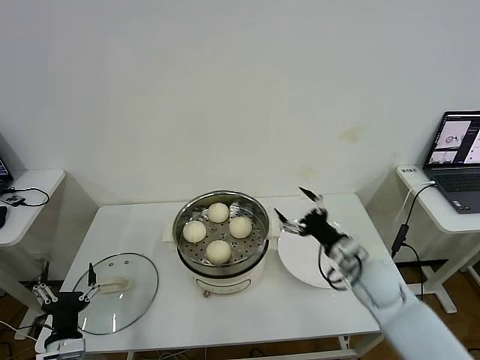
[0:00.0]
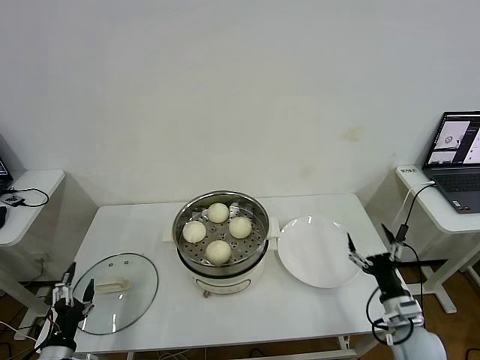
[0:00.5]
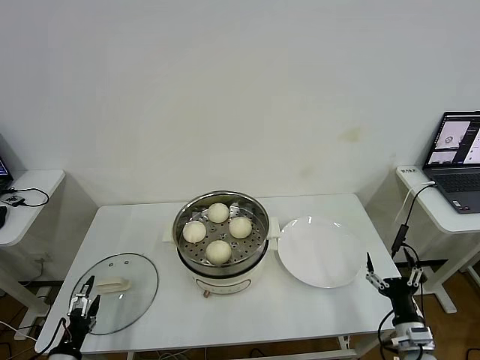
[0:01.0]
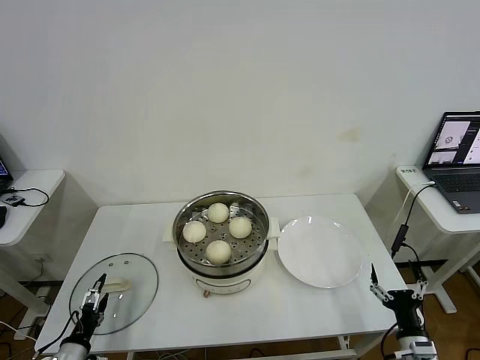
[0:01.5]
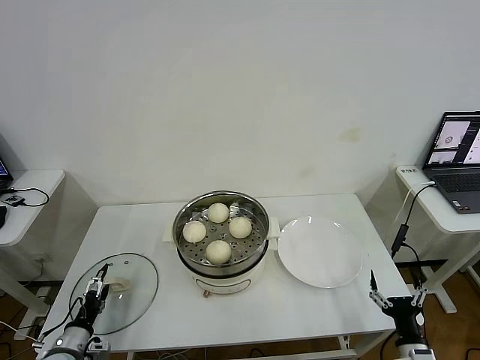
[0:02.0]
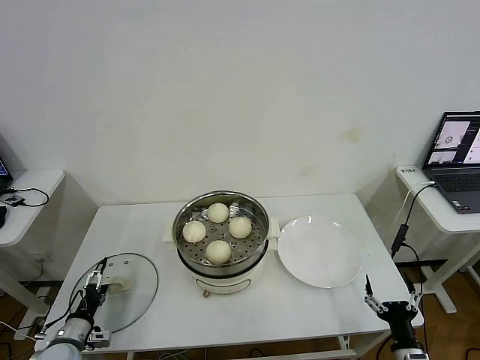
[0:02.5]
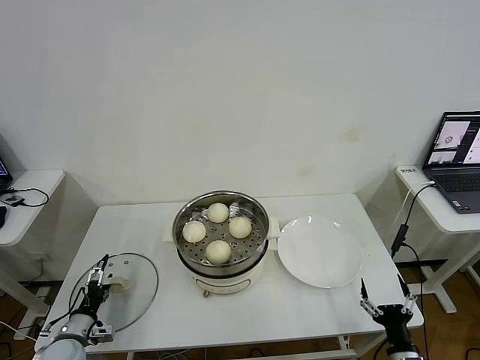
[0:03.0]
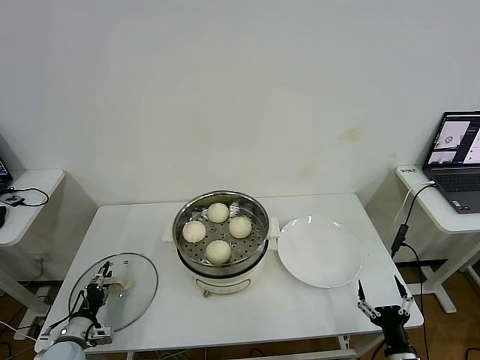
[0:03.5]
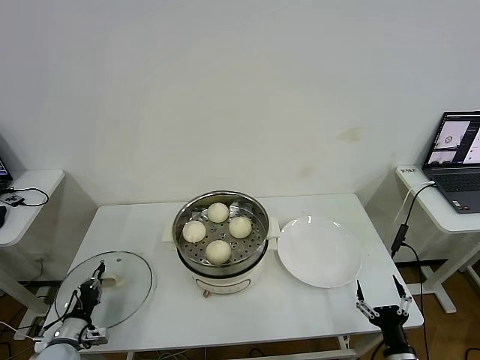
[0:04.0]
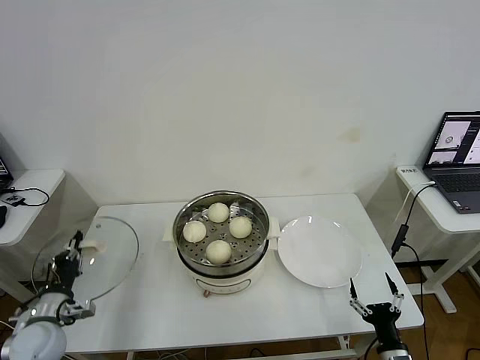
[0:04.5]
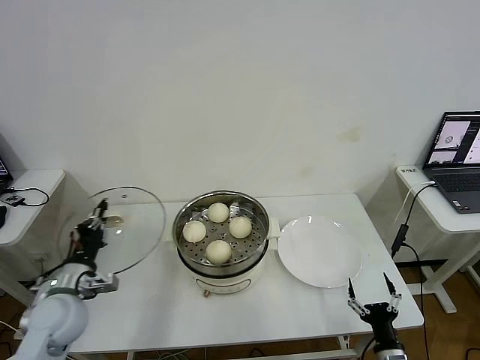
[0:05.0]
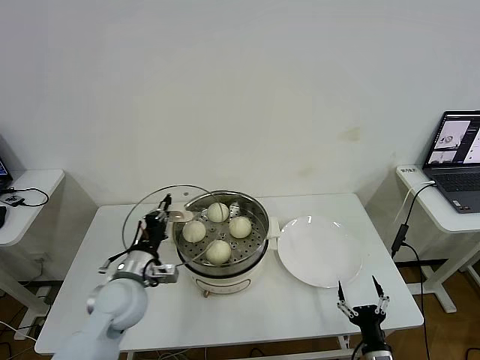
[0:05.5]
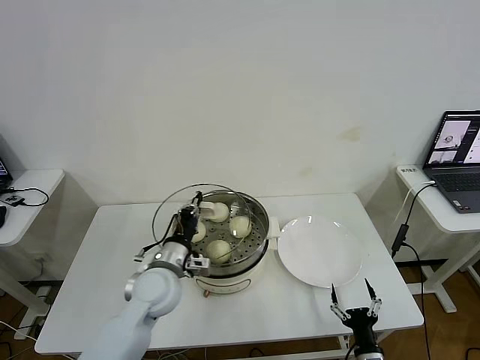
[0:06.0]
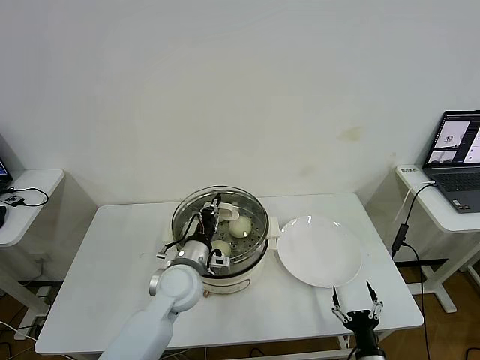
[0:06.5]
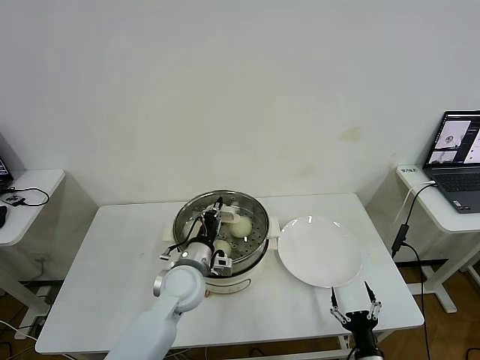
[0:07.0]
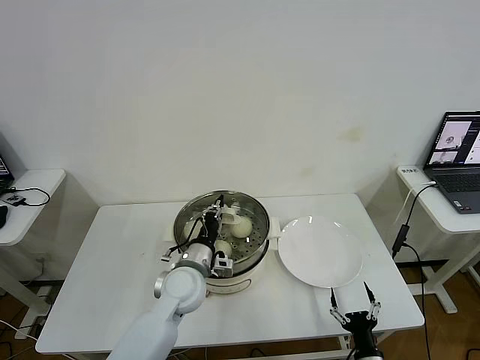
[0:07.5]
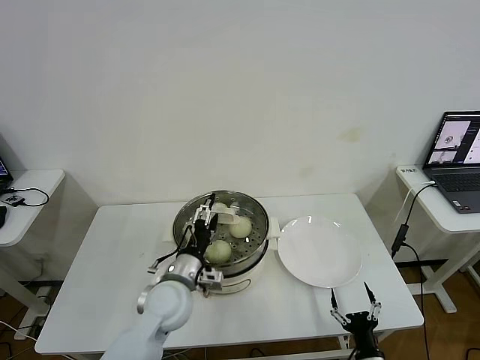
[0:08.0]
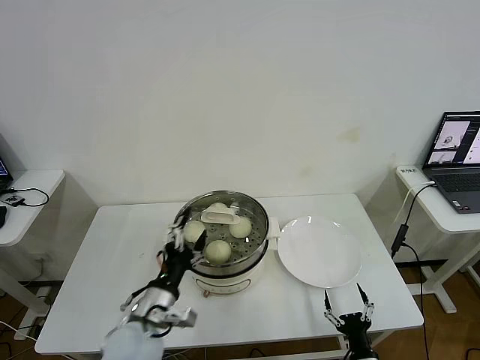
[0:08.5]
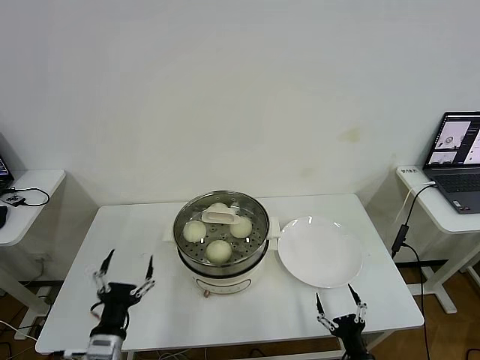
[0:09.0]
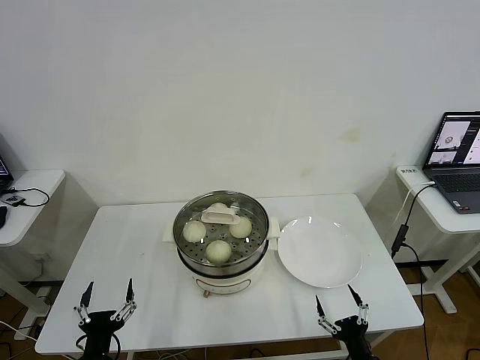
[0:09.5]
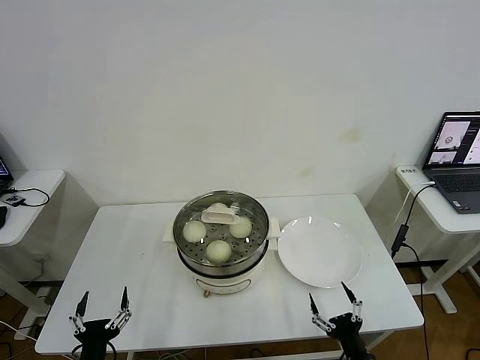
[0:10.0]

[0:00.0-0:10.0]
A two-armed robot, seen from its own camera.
Step, 0.0 to 4.0 s: Grasp the pot lid with left gripper.
Step, 4.5 to 7.5 s: Place the pot lid on the steamer with left gripper.
0.0 to 2.0 s: The right gripper is displaced backward, downward and to the right by about 25 cm. Meanwhile the left gripper shifts roughly 10 cm to the left and downward.
2.0 to 4.0 s: The left gripper closes its fingers.
4.0 to 6.0 s: The right gripper shifts some 5 cm to the left; the left gripper moves to the right, upward and forward, approximately 30 cm.
6.0 to 8.0 s: The left gripper opens its fingers.
8.0 to 10.0 s: The right gripper is displaced upward by about 5 cm; the left gripper travels backward, to the left and downward by some 30 cm.

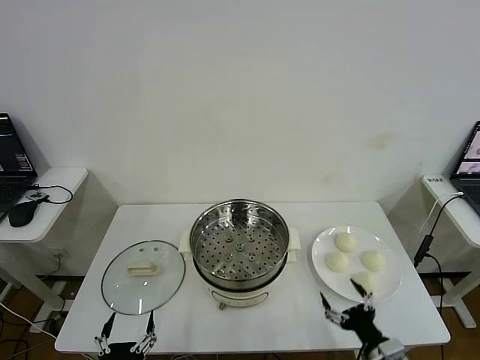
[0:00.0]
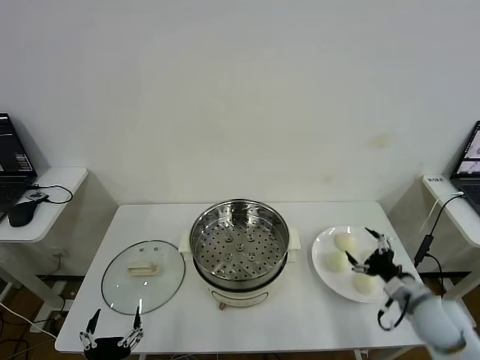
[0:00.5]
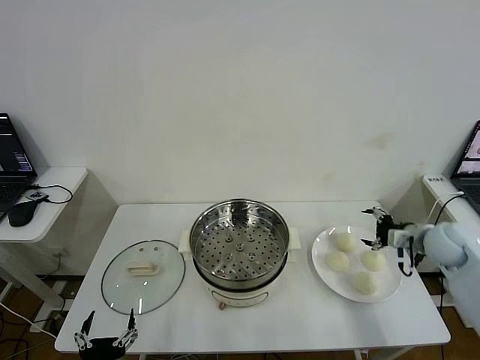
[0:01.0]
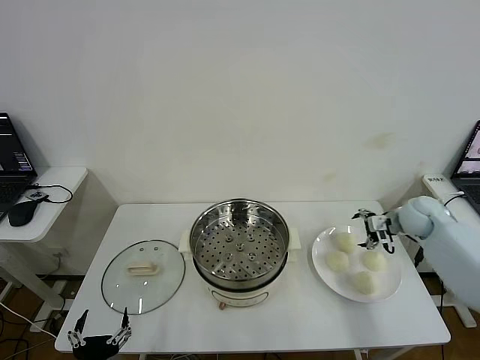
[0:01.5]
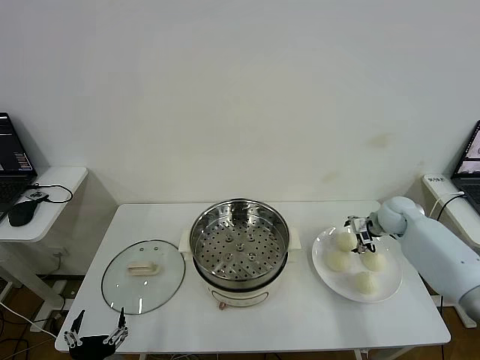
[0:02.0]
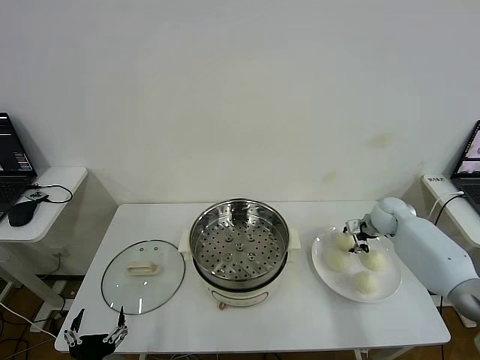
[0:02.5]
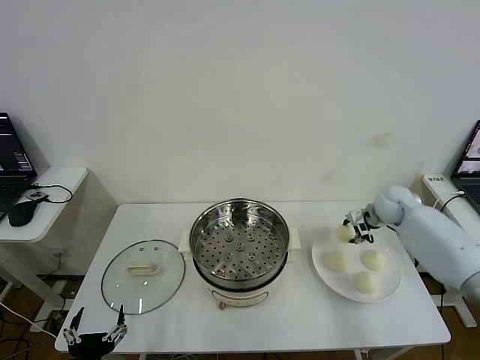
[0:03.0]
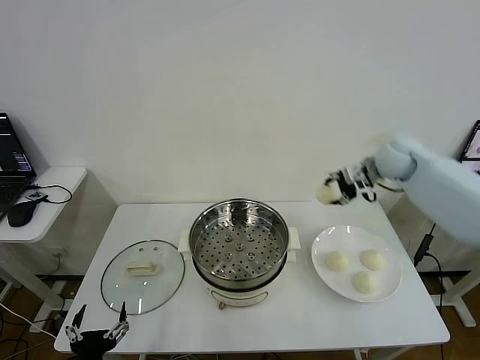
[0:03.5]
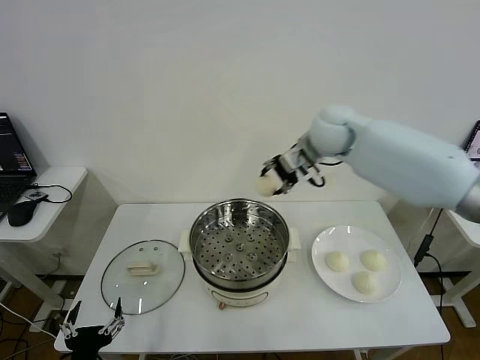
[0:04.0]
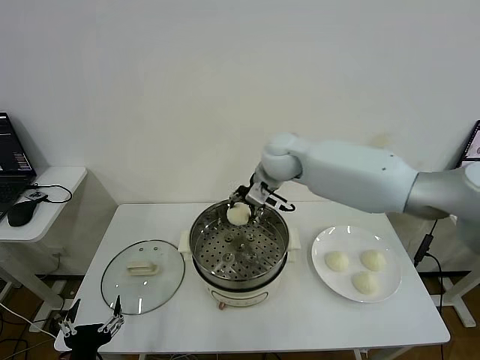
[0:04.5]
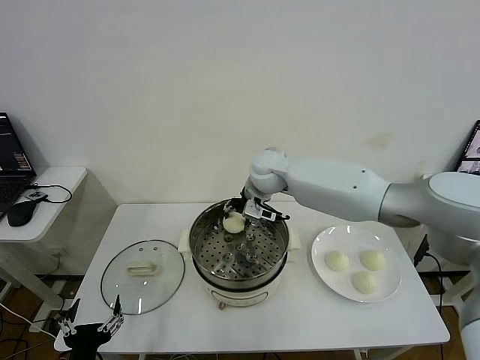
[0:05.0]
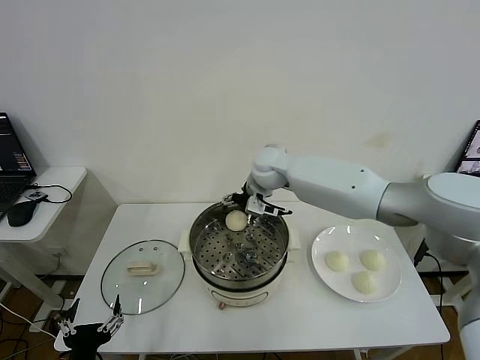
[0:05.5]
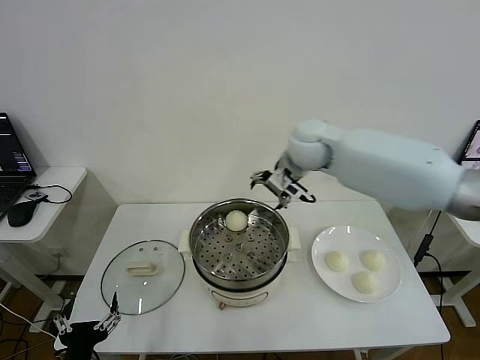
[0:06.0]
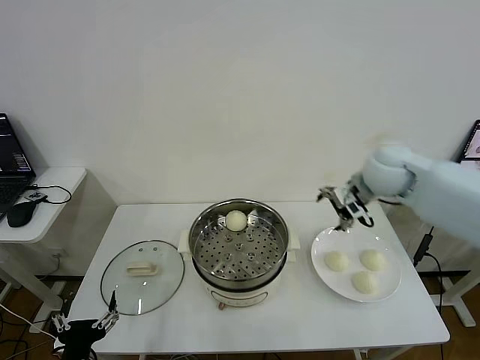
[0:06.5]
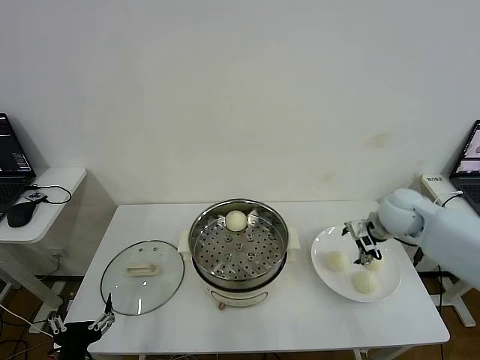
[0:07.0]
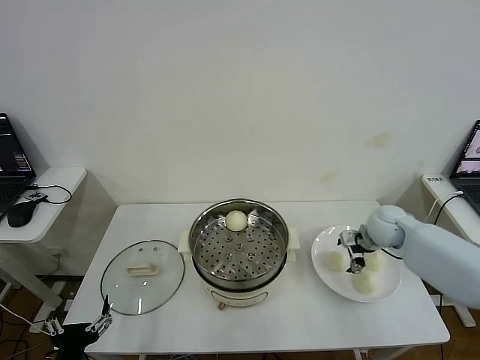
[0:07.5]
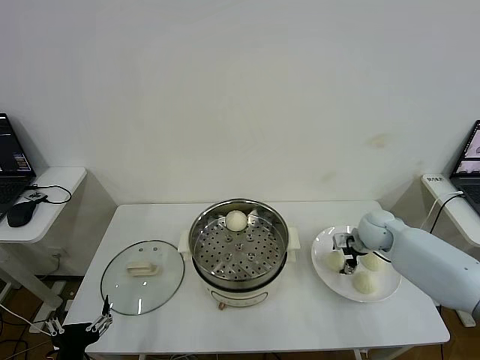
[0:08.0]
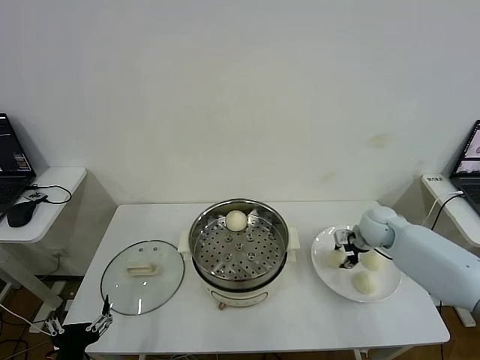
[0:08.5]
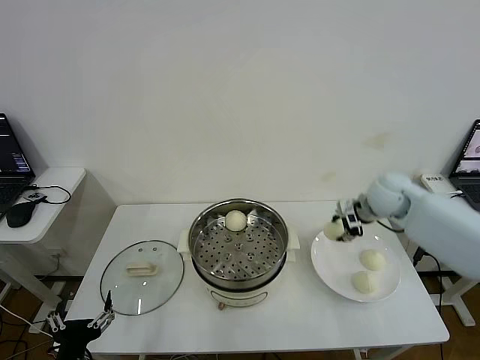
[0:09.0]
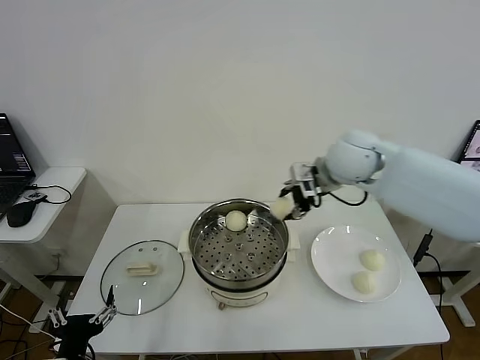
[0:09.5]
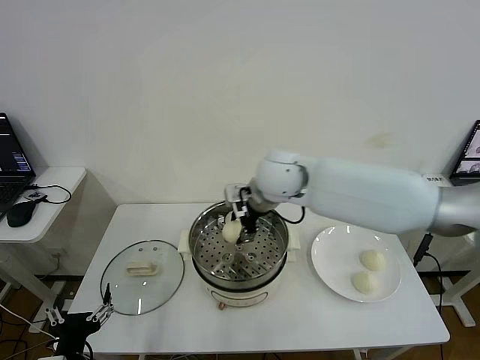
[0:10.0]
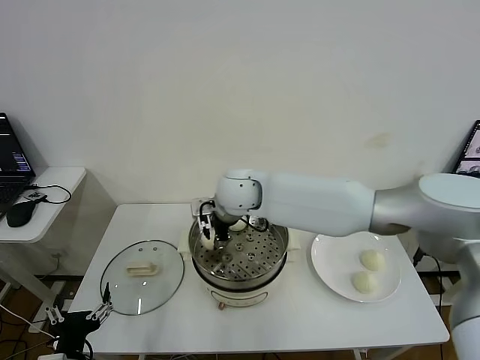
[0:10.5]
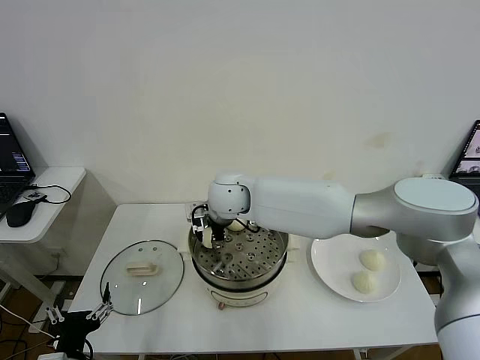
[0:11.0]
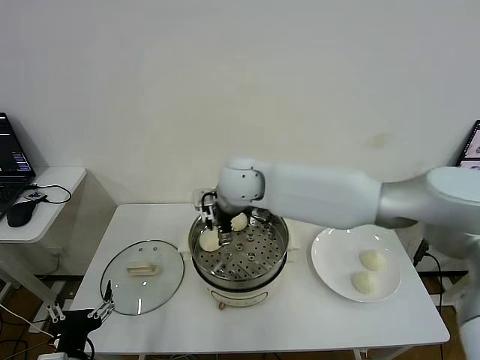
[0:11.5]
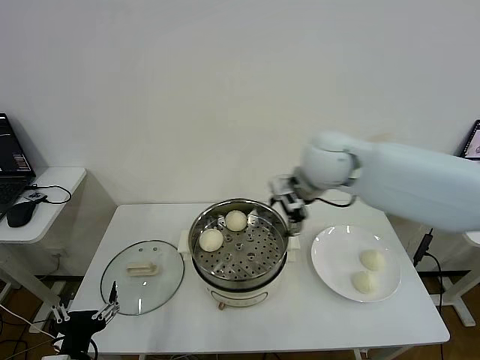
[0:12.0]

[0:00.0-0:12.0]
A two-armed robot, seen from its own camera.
Step, 0.0 to 2.5 s: Grasp the baozi in the plate with right gripper.
Step, 3.0 to 5.0 s: Place the baozi on the steamer with right gripper.
Step, 5.5 to 8.0 s: Grasp the baozi in the plate with right gripper.
Step, 9.0 to 11.0 s: Place the baozi on the steamer with right gripper.
2.0 to 4.0 s: The right gripper is displaced to the left and upward by approximately 35 cm, and closes.
4.0 to 6.0 s: The right gripper reaches about 10 cm to the left, then returns, and opens.
6.0 to 8.0 s: The right gripper is displaced downward and to the right by roughly 30 cm, and closes up.
8.0 to 10.0 s: The right gripper goes some 35 cm to the left and upward, and closes up.
10.0 to 12.0 s: The right gripper travels to the right by some 15 cm, and opens its fingers.

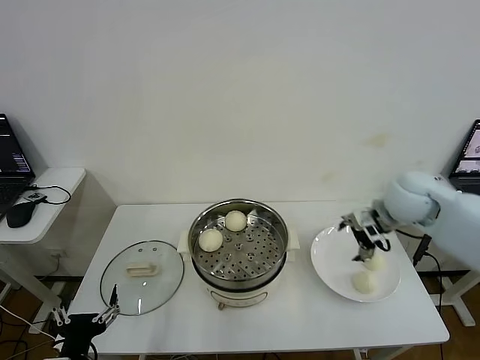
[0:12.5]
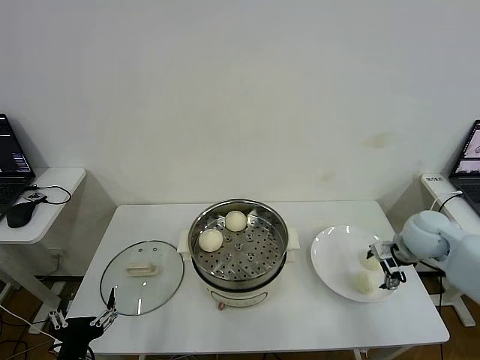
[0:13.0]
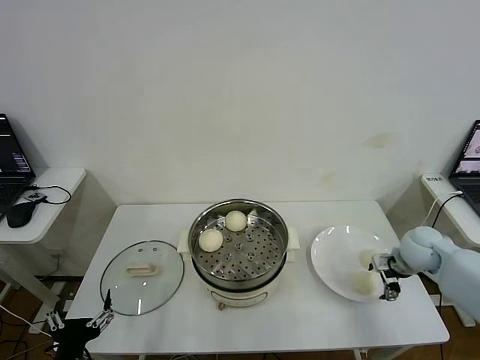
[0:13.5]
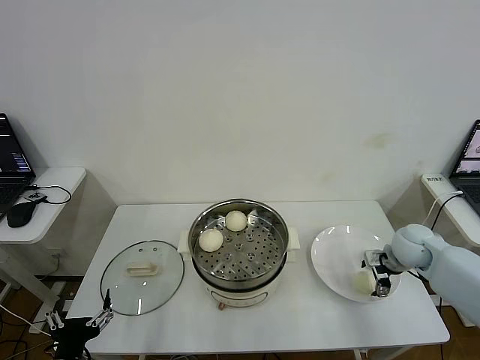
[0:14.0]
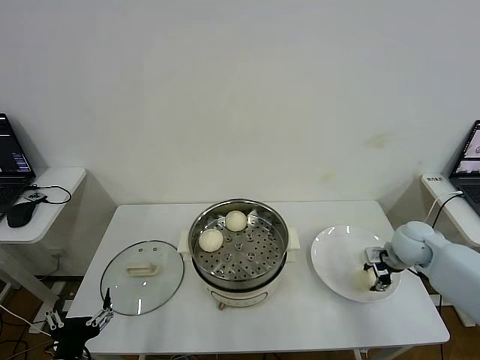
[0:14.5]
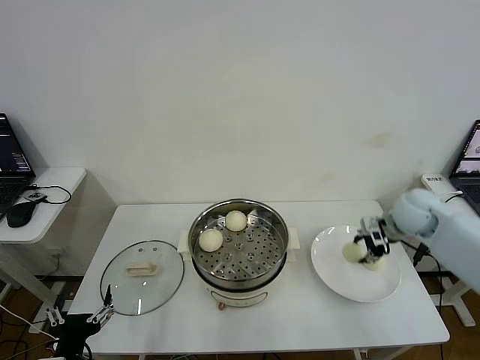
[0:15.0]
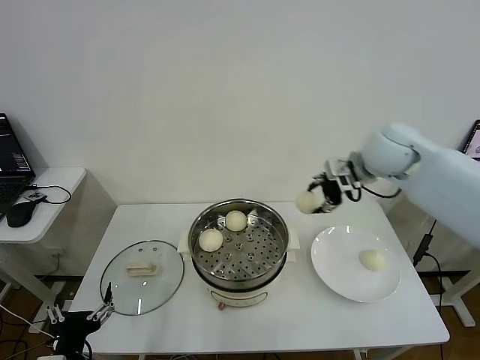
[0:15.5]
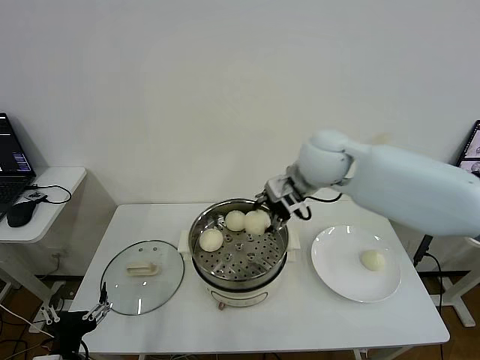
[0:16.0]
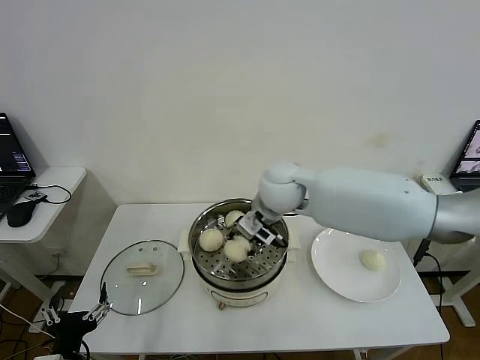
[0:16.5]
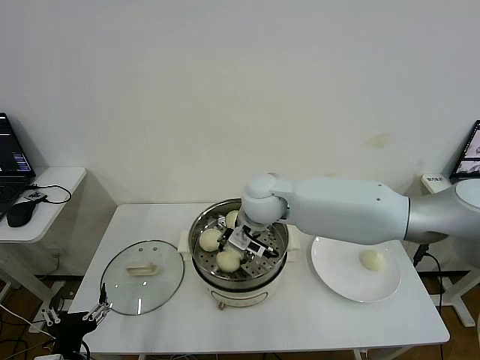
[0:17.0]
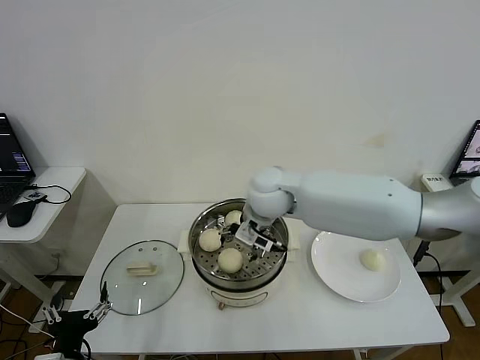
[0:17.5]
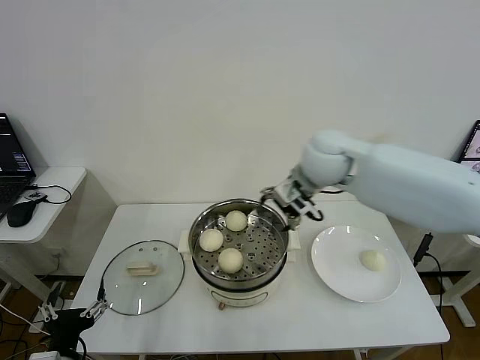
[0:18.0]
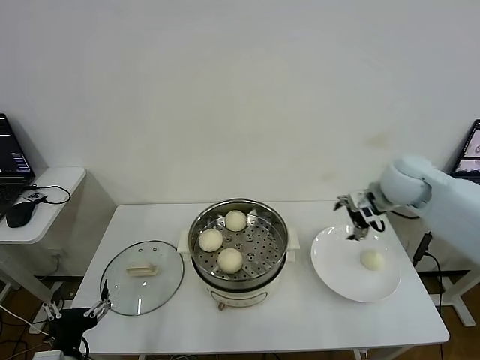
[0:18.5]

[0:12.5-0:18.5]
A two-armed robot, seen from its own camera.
Step, 14.5 to 17.0 s: Place the baozi on the steamer with right gripper.
12.5 to 14.5 s: The right gripper shifts approximately 15 cm downward and to the right, and closes up.
14.5 to 16.5 s: The right gripper goes approximately 35 cm to the left and upward.
16.5 to 18.5 s: The right gripper is displaced to the right by approximately 30 cm, and opens.
